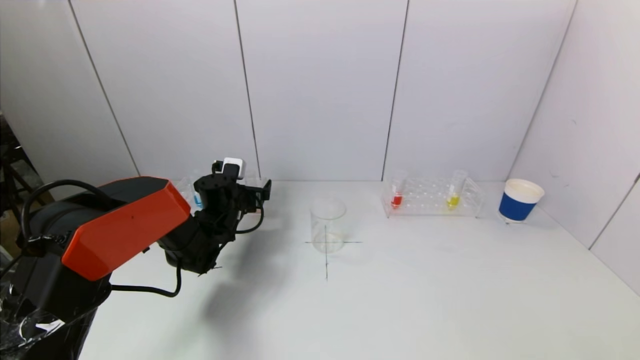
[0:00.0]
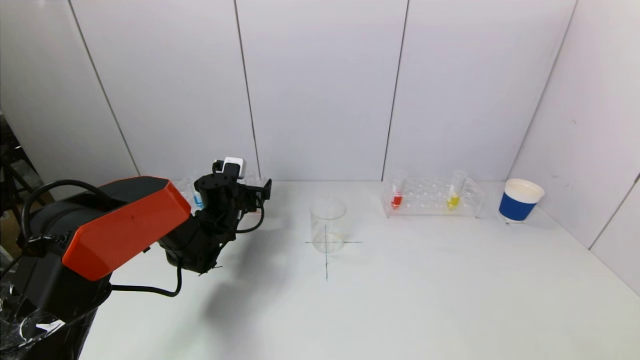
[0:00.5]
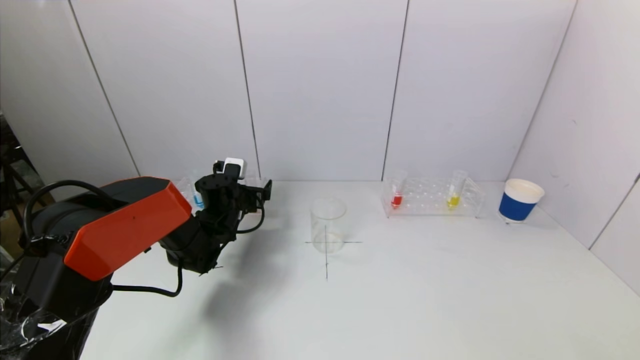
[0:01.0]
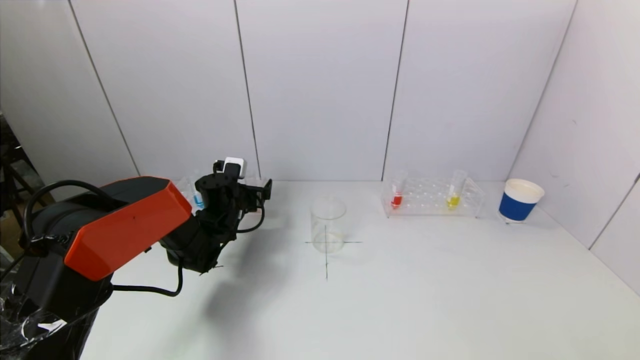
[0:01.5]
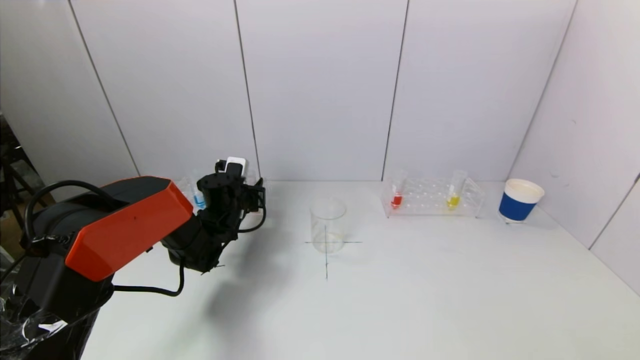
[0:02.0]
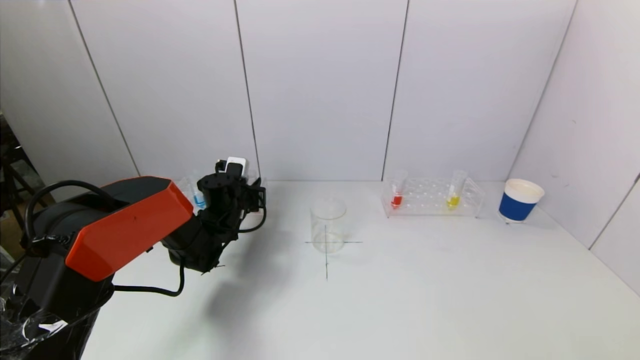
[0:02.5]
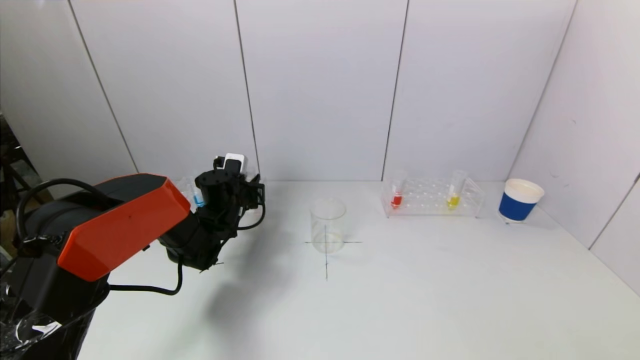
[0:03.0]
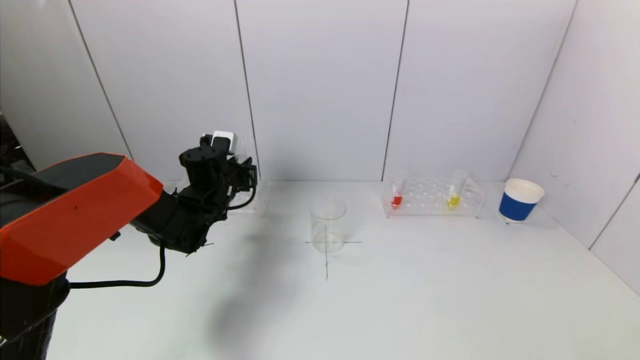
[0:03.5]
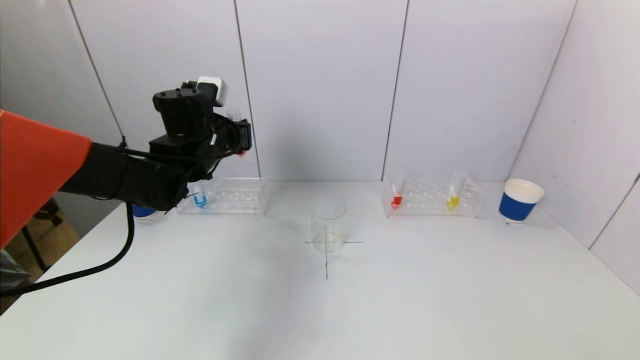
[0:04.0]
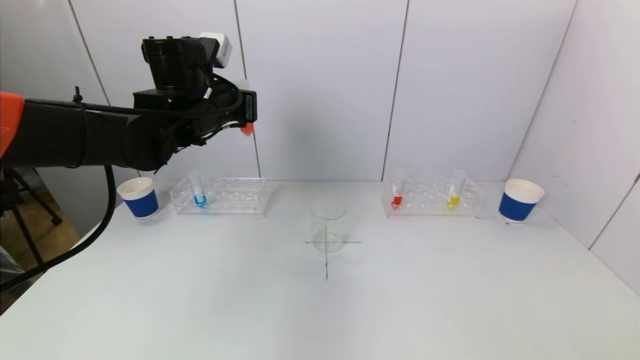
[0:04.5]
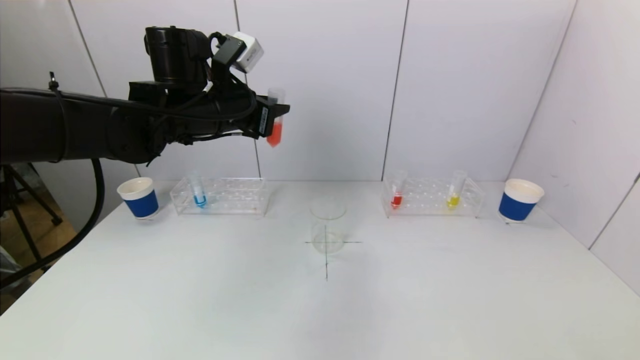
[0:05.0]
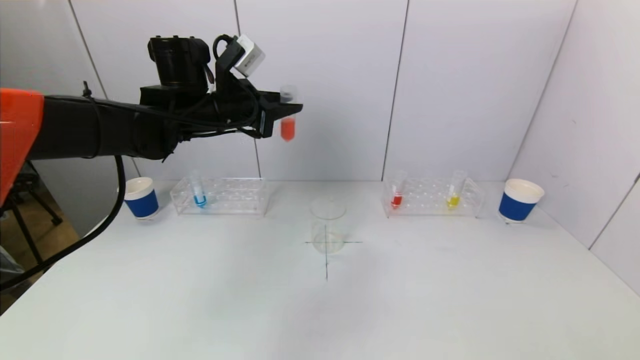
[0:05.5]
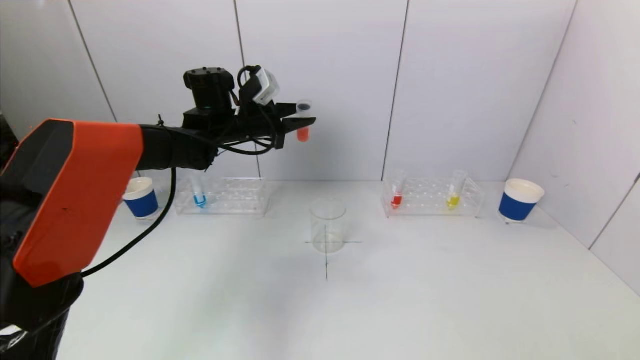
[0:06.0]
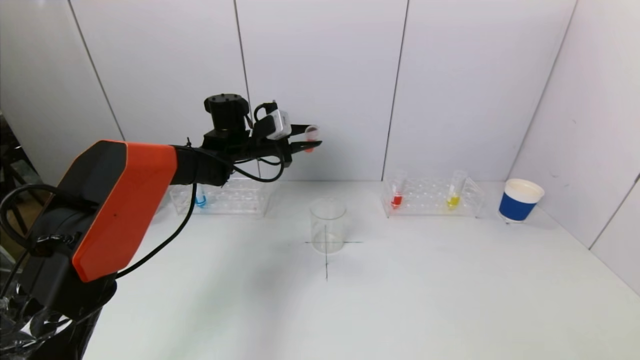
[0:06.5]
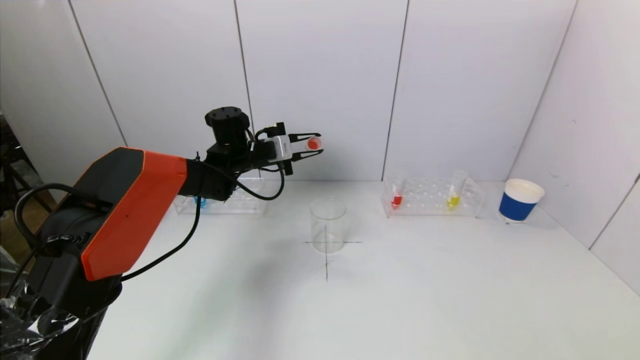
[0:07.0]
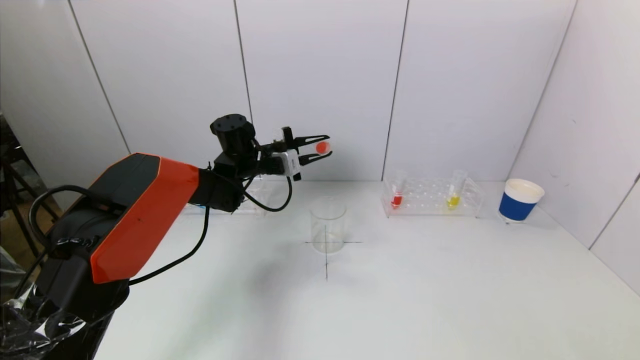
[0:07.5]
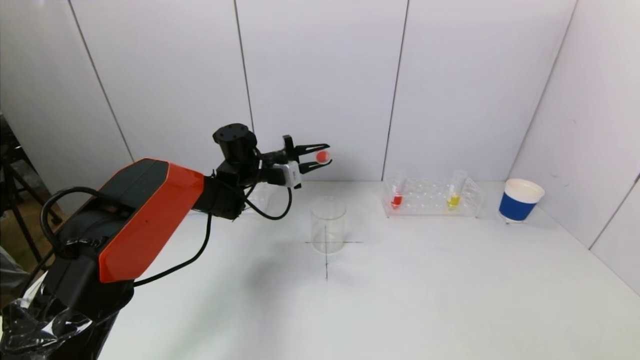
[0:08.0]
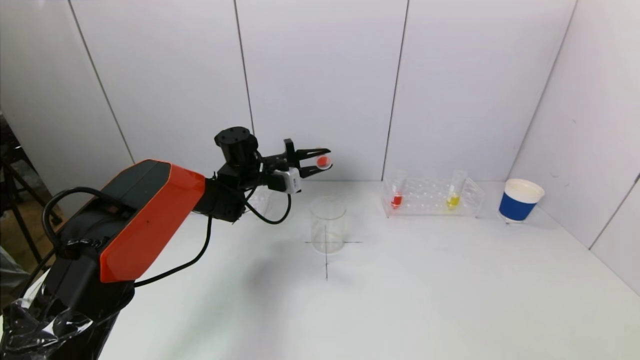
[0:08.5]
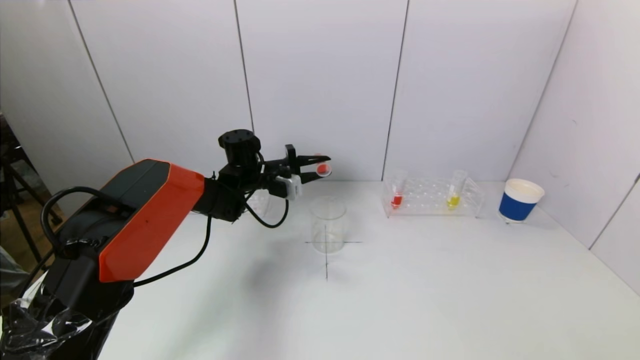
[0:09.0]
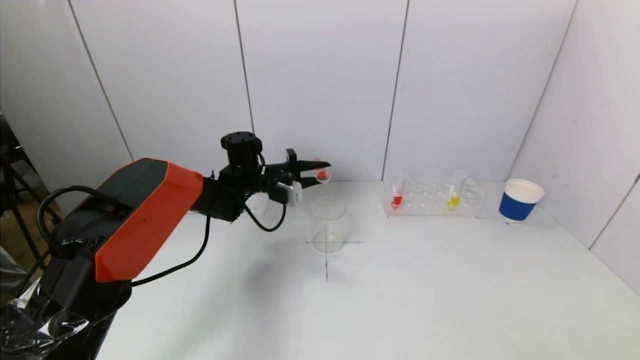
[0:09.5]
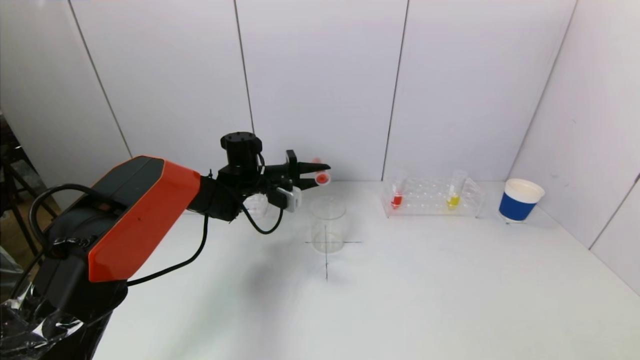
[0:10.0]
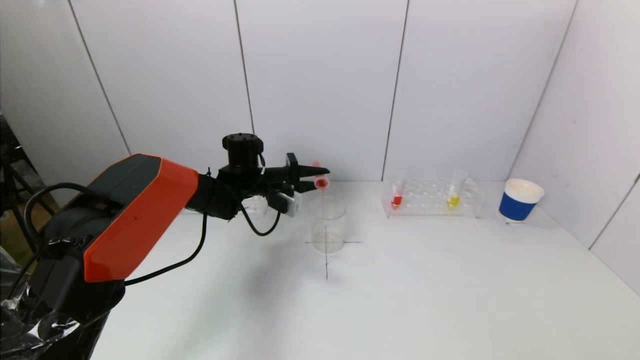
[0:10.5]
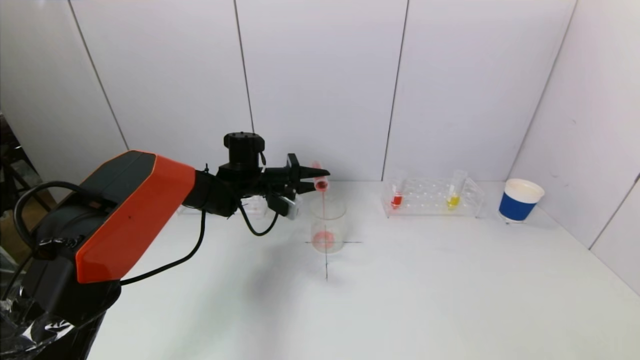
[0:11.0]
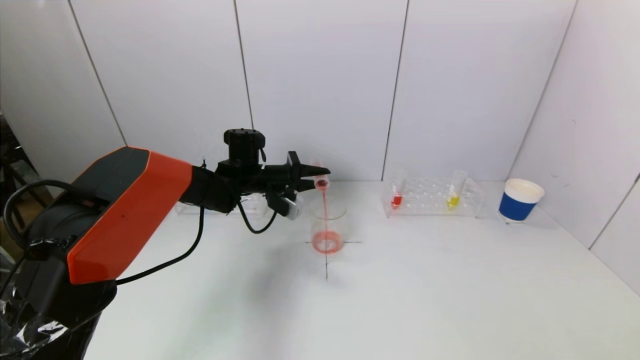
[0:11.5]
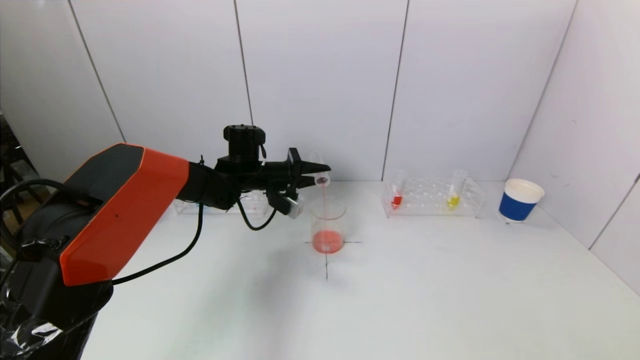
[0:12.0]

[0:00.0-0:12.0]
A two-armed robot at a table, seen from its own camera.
Task of the whole recording: pick up a test tube with pigment on left test tube rack and a test tube with pigment on right test tube rack by grippers and pour them into the beaker.
Step, 0:00.0 to 0:02.0: Grasp the red reagent with the left gripper.
0:00.0 to 0:02.0: The left gripper closes its fingers.
0:02.0 to 0:04.0: The left gripper heads upward, covering some 15 cm.
0:04.0 to 0:06.0: The left gripper travels forward by approximately 5 cm.
0:06.0 to 0:08.0: The left gripper shifts roughly 10 cm downward.
0:08.0 to 0:10.0: The grippers move only a little.
0:10.0 to 0:12.0: The grippers move only a little.

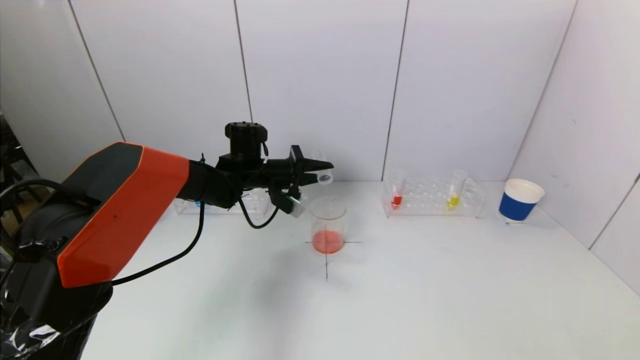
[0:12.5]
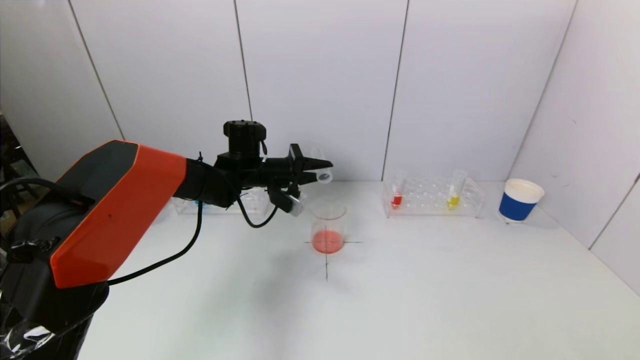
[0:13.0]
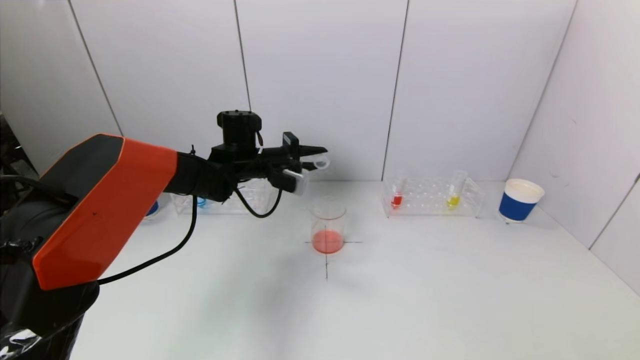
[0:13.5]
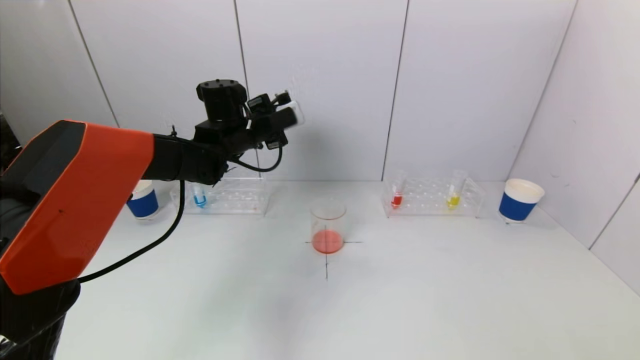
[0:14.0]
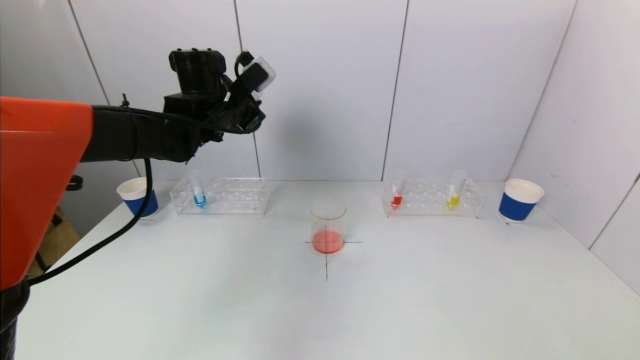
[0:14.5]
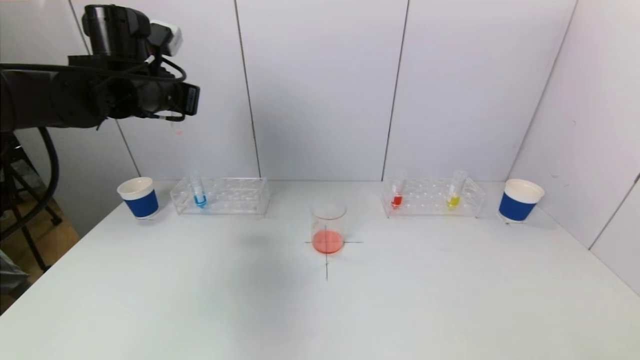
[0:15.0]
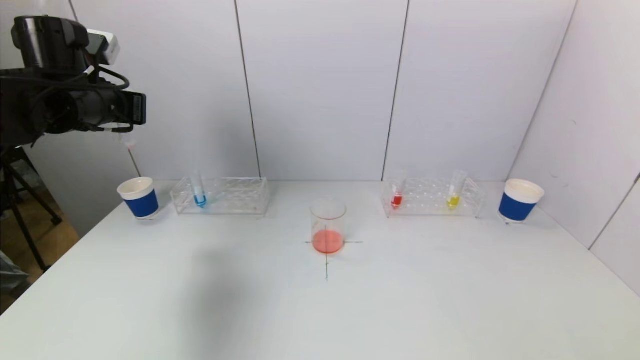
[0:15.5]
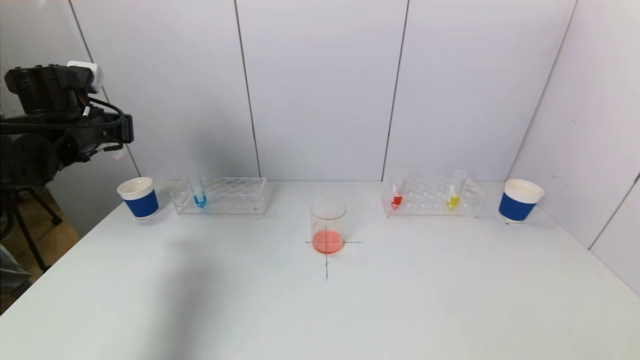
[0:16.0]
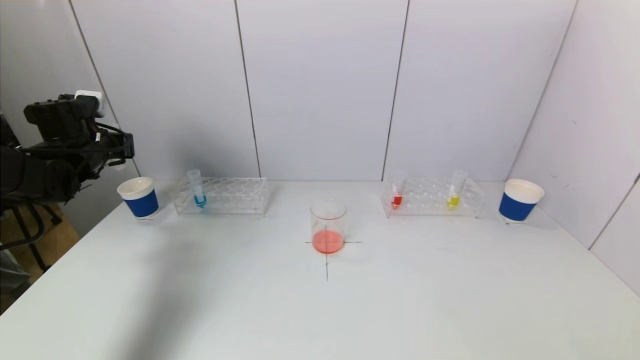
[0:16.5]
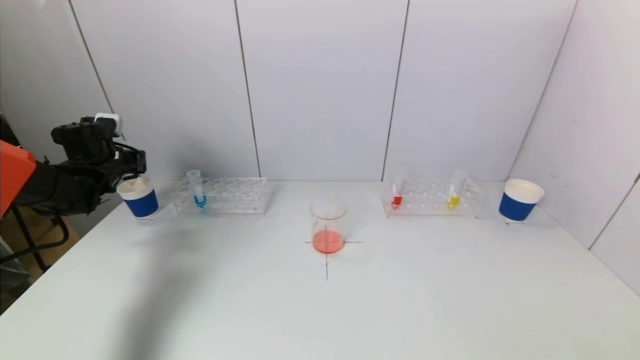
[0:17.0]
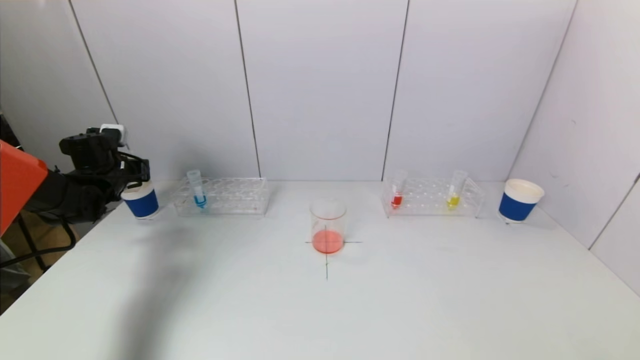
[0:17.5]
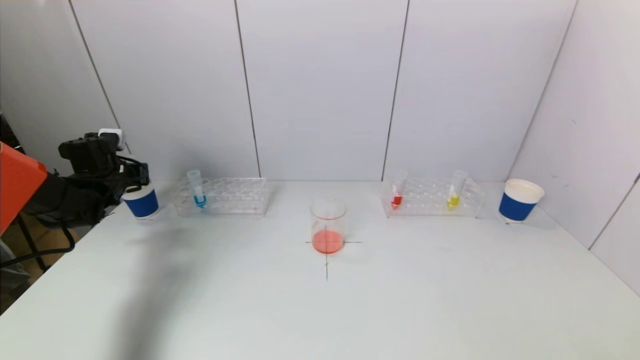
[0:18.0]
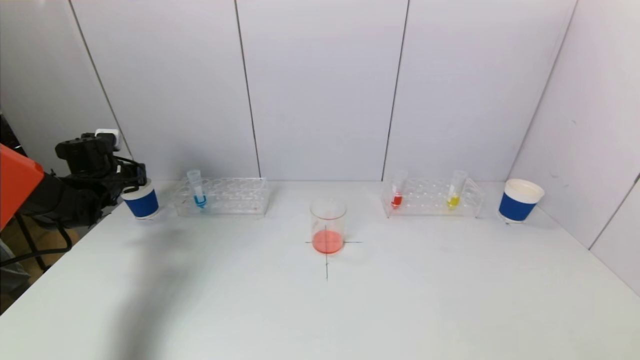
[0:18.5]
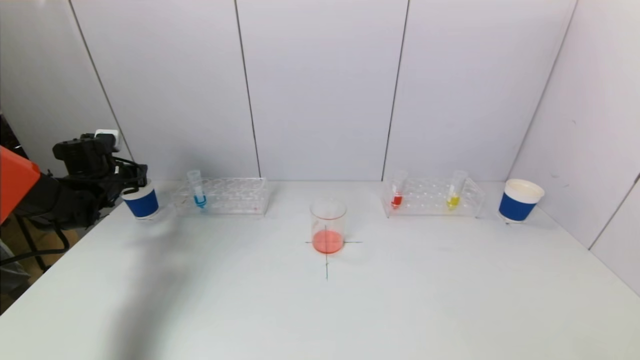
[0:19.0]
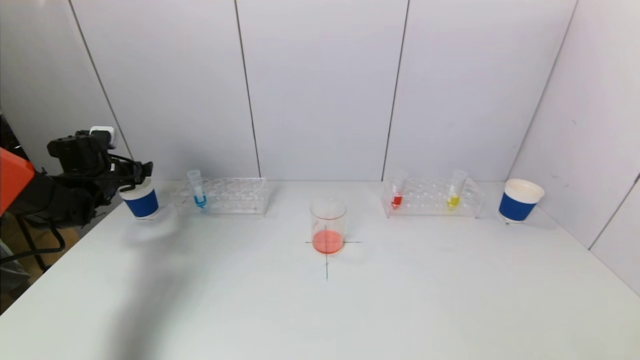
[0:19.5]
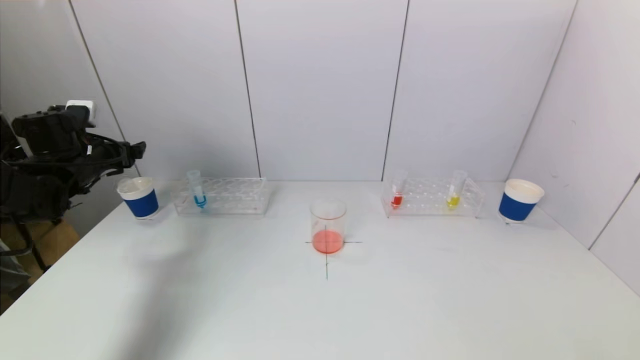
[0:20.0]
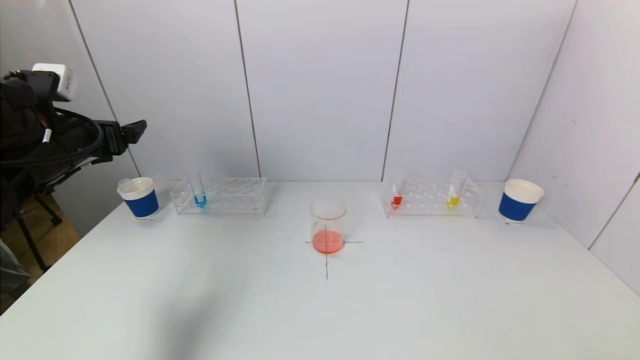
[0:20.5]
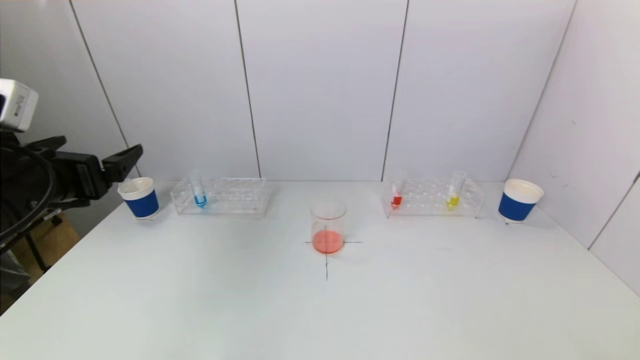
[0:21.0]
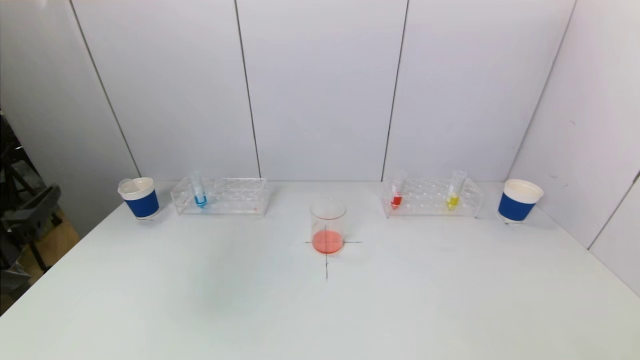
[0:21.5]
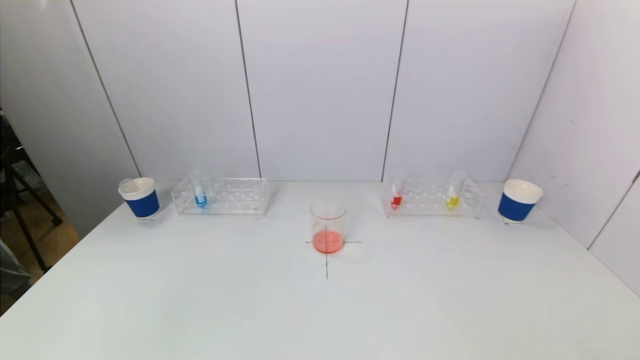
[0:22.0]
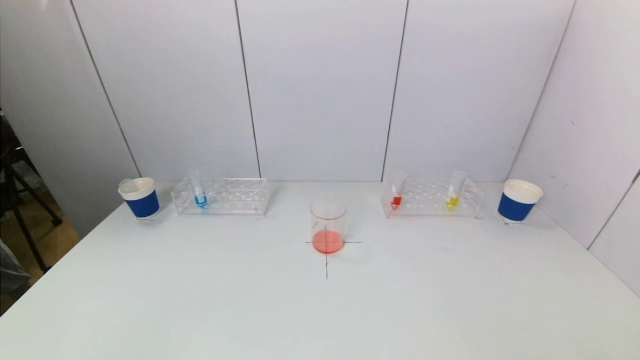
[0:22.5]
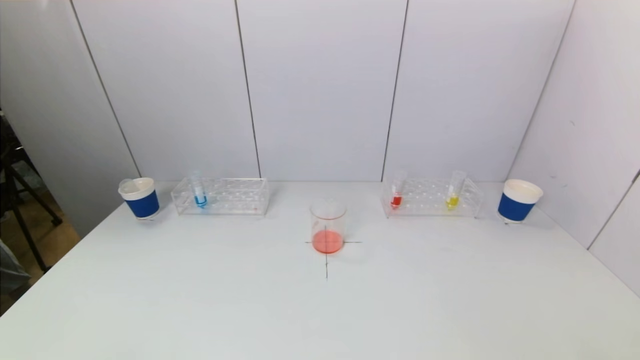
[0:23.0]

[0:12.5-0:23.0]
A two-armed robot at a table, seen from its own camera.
Task of the whole recording: pick up a test tube with pigment on left test tube rack and a test tube with pigment on right test tube rack by grippers and pour them into the beaker.
Step, 0:14.0 to 0:19.5: Place the test tube into the paper cup with the left gripper.
0:12.5 to 0:14.5: The left gripper goes some 15 cm upward and to the left.
0:14.5 to 0:16.5: The left gripper shifts roughly 25 cm to the left.
0:16.5 to 0:19.0: The left gripper heads downward, covering about 10 cm, and opens its fingers.
0:19.0 to 0:21.0: The left gripper heads backward, upward and to the right, covering some 30 cm, and opens.
0:21.0 to 0:23.0: The left gripper travels backward and downward by roughly 25 cm.
